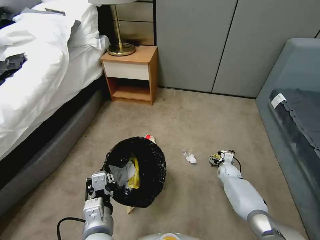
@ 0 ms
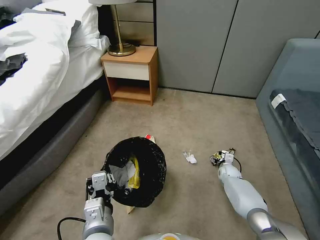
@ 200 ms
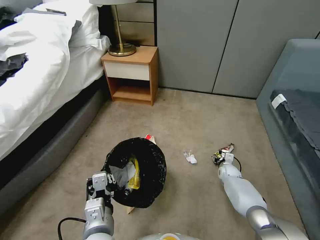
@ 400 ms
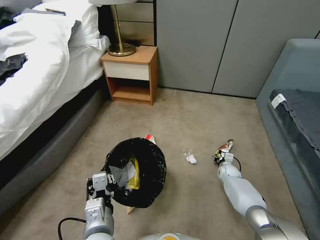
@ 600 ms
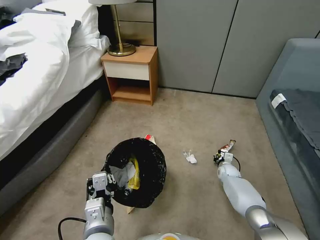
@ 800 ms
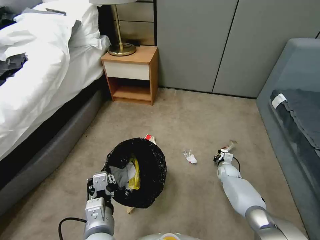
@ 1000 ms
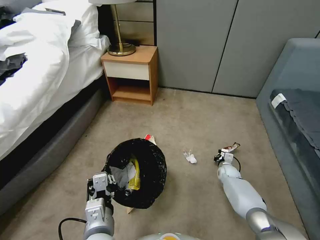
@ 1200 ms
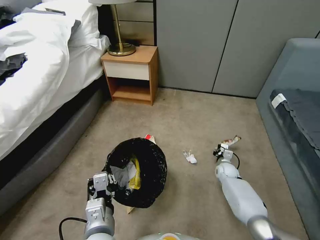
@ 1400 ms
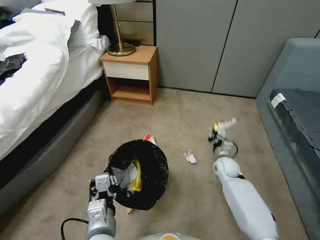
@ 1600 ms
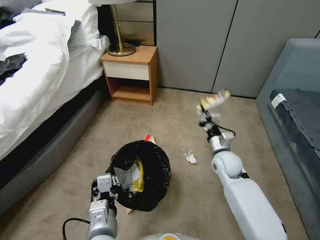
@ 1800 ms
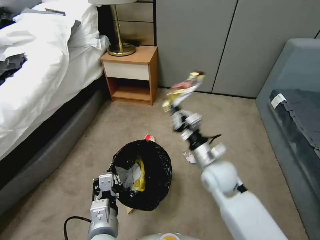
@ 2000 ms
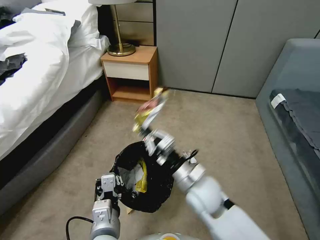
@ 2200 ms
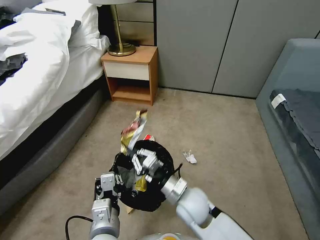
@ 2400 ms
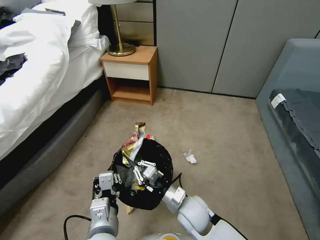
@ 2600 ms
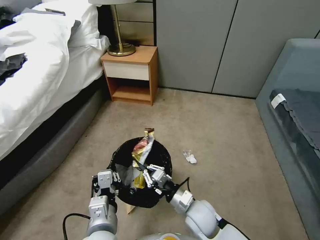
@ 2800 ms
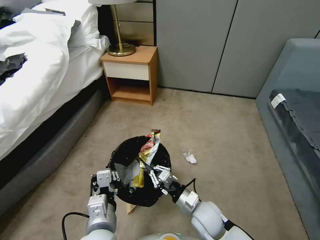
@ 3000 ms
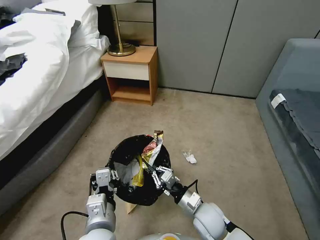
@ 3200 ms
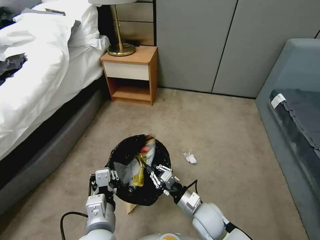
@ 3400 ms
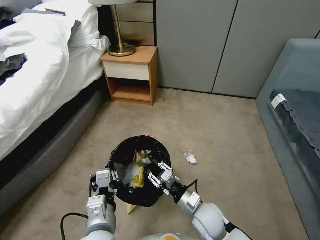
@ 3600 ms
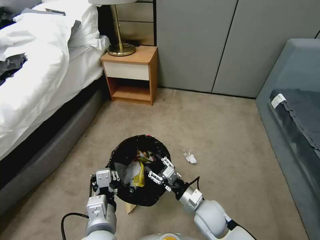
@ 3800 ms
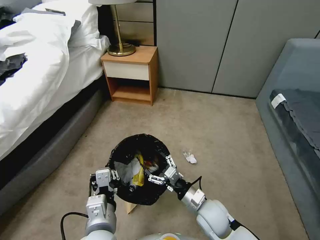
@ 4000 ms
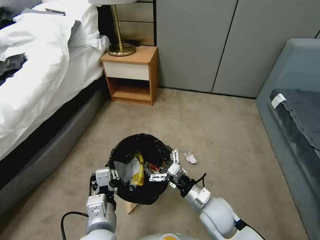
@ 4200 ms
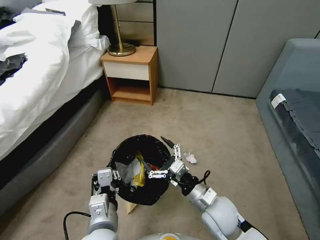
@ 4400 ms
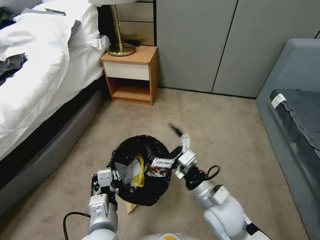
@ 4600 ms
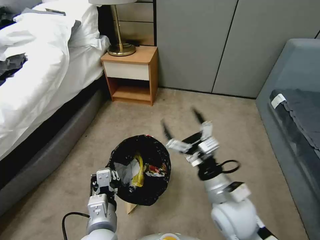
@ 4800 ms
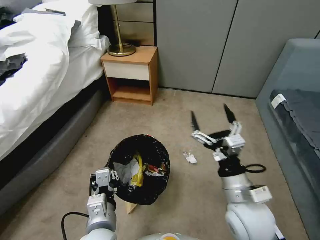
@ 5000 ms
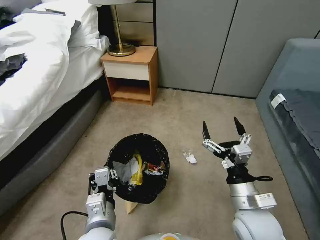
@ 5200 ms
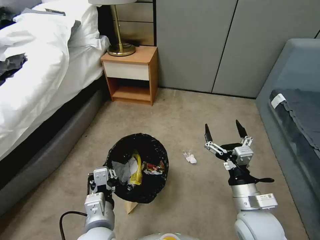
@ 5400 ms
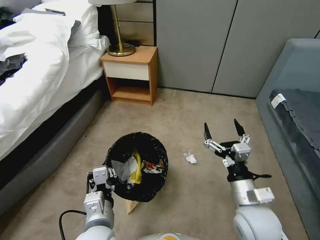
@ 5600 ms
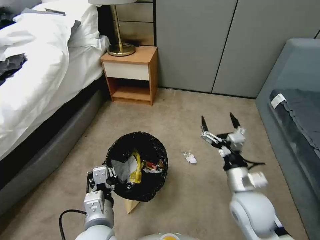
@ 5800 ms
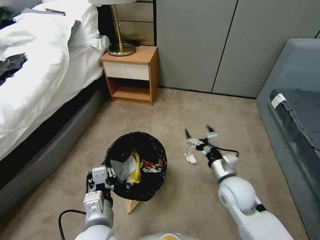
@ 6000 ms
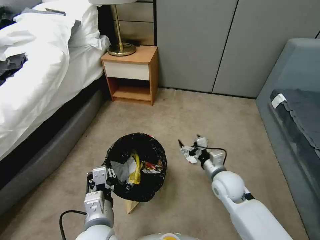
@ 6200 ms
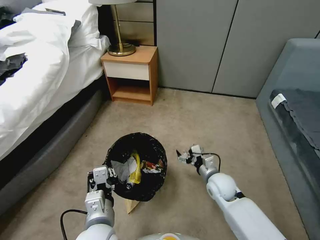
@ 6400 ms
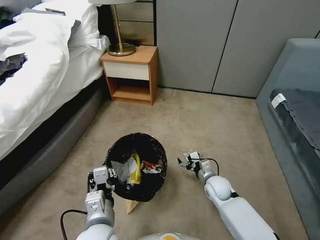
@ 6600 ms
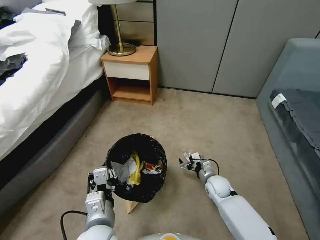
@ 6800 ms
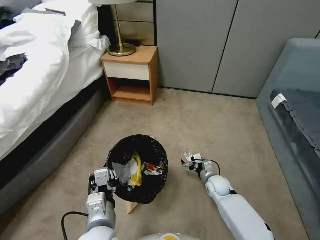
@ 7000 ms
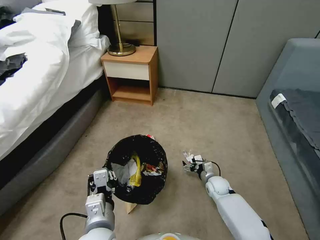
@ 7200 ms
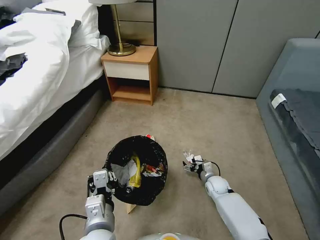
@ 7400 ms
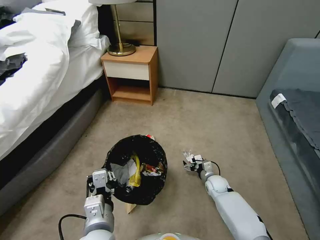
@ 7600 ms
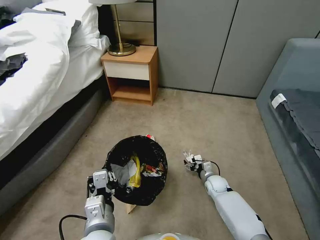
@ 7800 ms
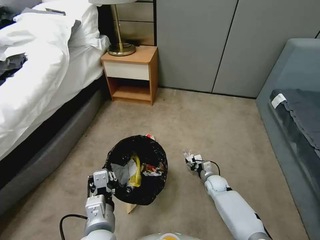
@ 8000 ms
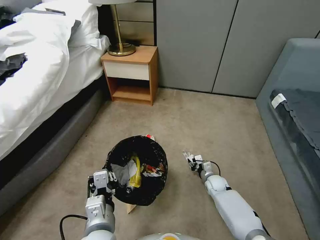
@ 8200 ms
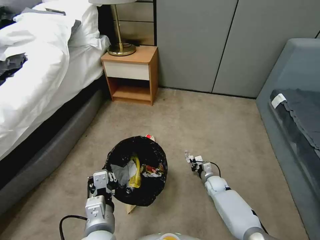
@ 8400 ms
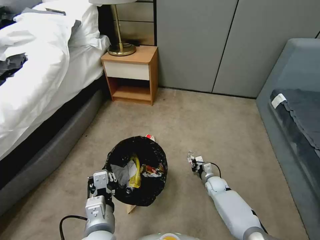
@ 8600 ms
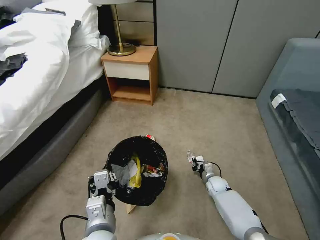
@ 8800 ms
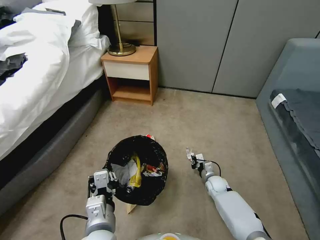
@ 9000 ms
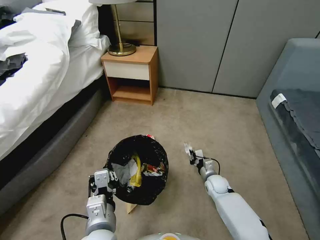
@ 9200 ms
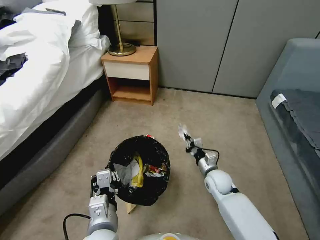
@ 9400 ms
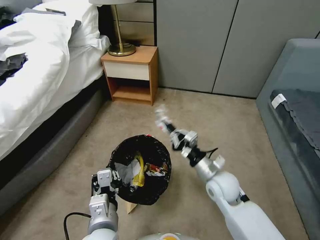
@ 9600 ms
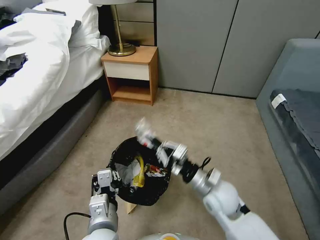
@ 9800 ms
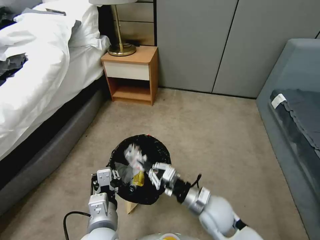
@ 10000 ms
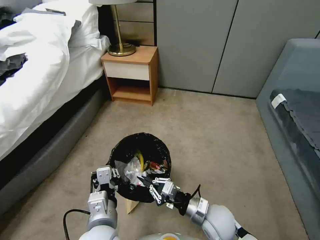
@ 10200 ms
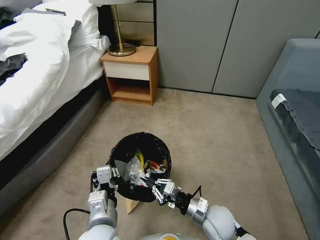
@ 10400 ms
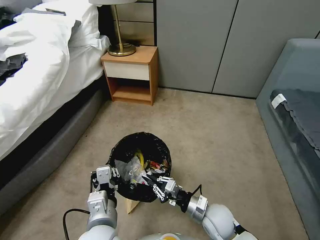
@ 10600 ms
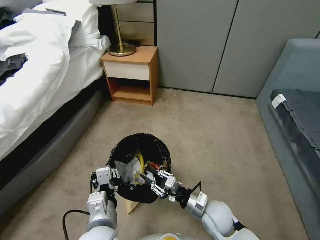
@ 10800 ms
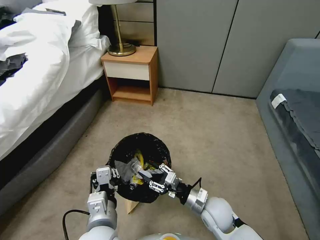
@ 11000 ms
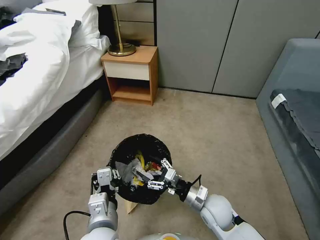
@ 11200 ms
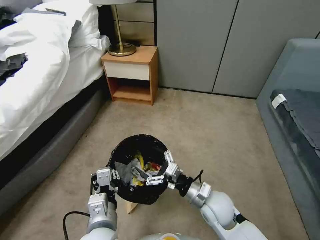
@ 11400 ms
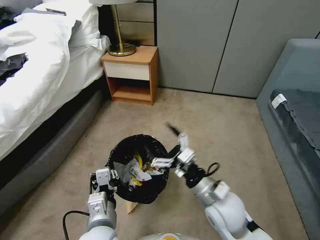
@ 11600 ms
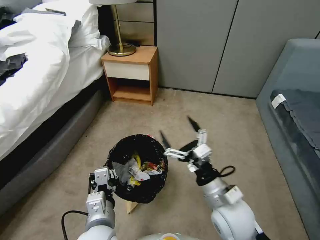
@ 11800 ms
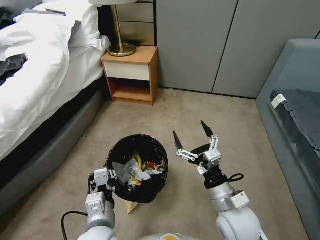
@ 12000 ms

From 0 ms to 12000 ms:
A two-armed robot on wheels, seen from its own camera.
Task of the whole recording: Pick up the trash bin, then pick up the garbage from the floor and place it into the trash bin.
From 0 ms to 1600 ms: The right gripper is displaced upward and to the left by about 10 cm, and closes.
From 1600 ms to 3000 ms: The right gripper travels backward and to the left by approximately 25 cm.
From 3000 ms to 4400 ms: The right gripper heads upward, covering about 5 cm, and opens its fingers.
From 4400 ms to 6000 ms: The right gripper shifts about 5 cm to the right.
From 6000 ms to 7600 ms: The right gripper shifts approximately 25 cm downward and forward.
From 7600 ms to 9000 ms: The right gripper closes up.
From 9000 ms to 10400 ms: The right gripper goes roughly 25 cm backward, upward and to the left.
From 10400 ms to 12000 ms: The right gripper moves upward, about 10 cm, and opens.

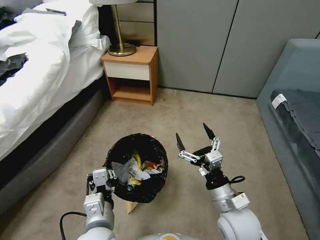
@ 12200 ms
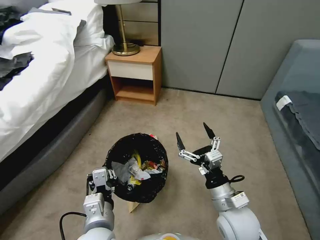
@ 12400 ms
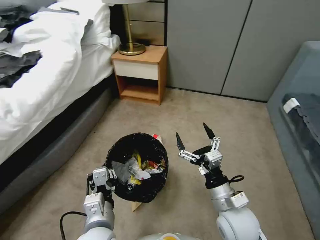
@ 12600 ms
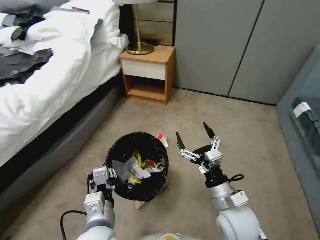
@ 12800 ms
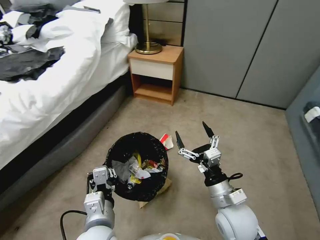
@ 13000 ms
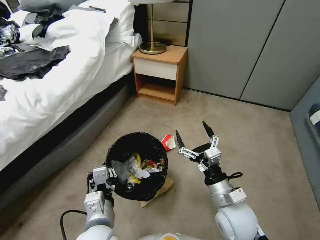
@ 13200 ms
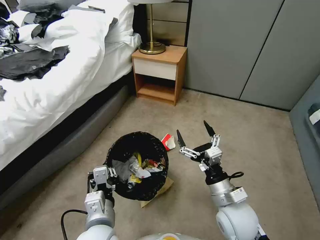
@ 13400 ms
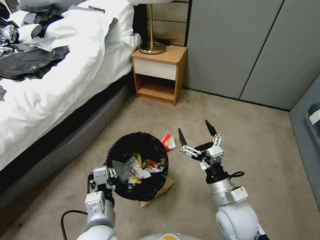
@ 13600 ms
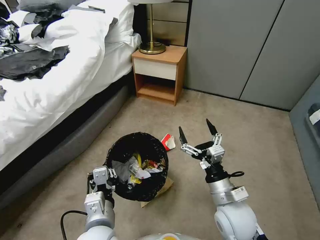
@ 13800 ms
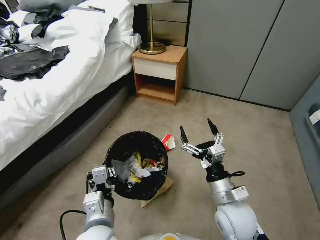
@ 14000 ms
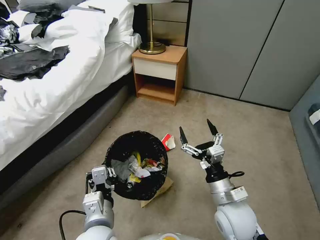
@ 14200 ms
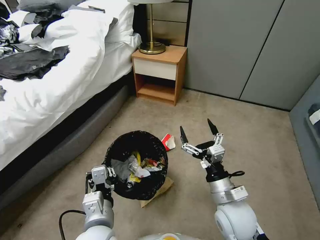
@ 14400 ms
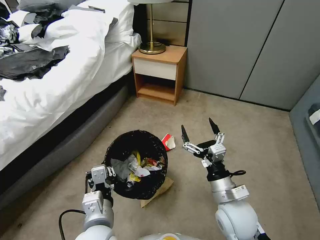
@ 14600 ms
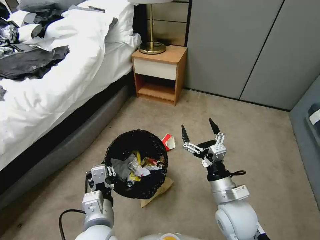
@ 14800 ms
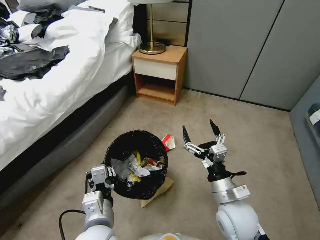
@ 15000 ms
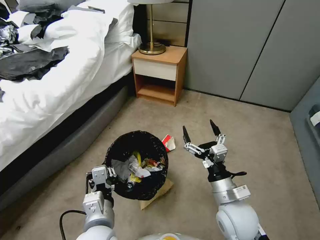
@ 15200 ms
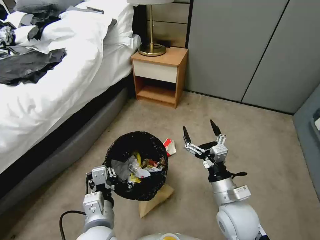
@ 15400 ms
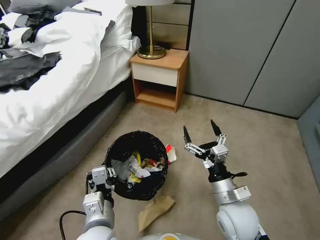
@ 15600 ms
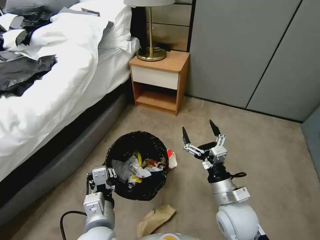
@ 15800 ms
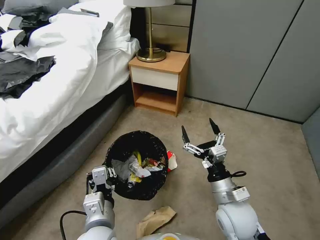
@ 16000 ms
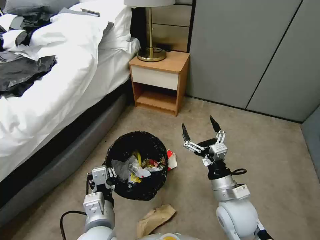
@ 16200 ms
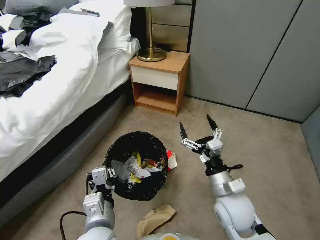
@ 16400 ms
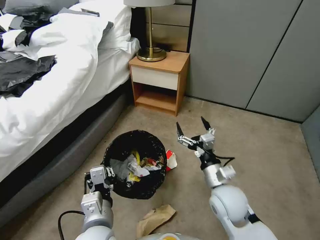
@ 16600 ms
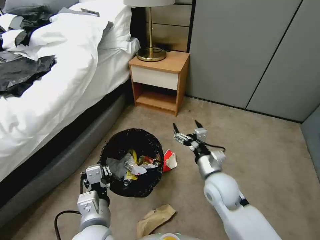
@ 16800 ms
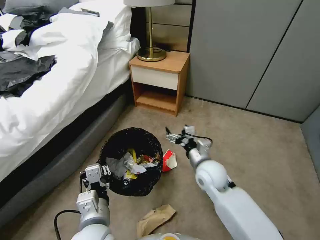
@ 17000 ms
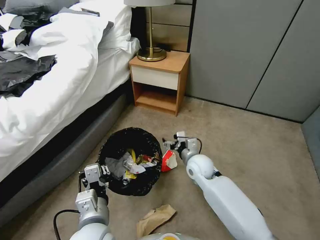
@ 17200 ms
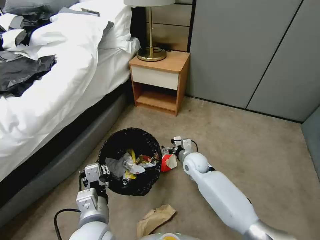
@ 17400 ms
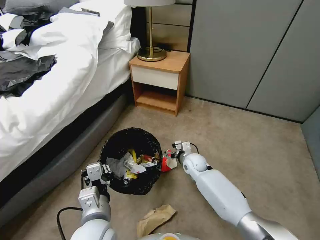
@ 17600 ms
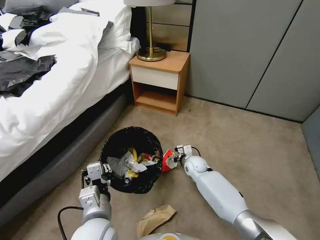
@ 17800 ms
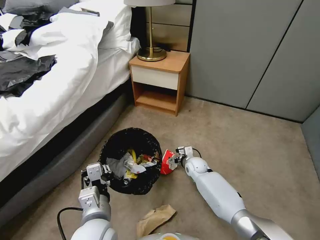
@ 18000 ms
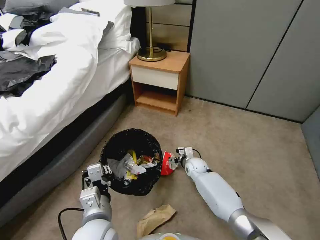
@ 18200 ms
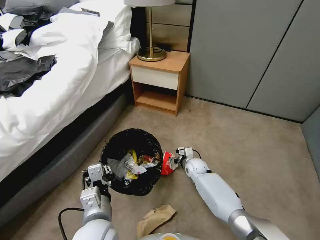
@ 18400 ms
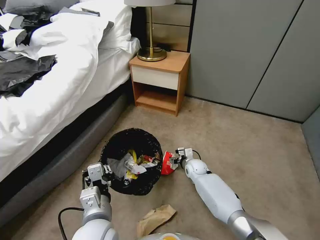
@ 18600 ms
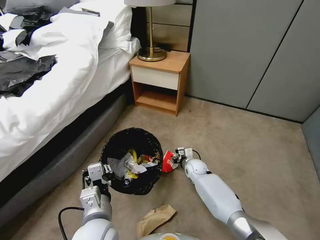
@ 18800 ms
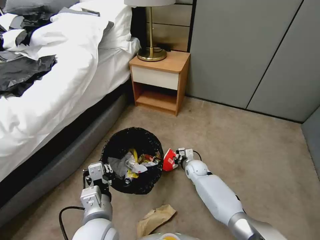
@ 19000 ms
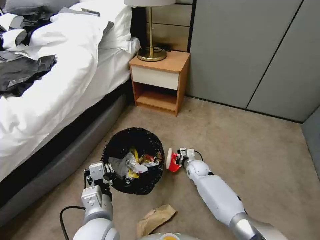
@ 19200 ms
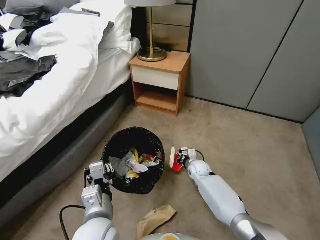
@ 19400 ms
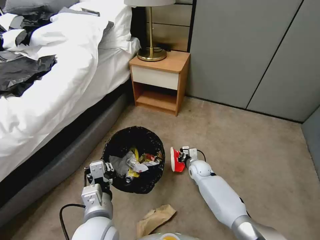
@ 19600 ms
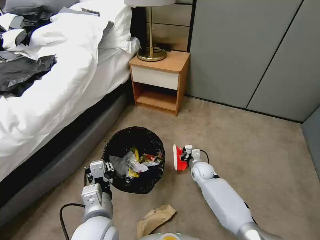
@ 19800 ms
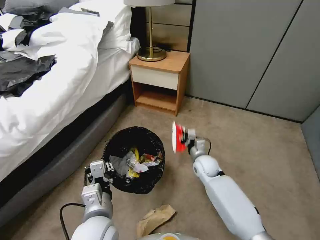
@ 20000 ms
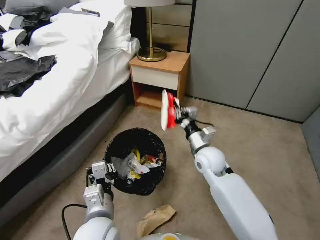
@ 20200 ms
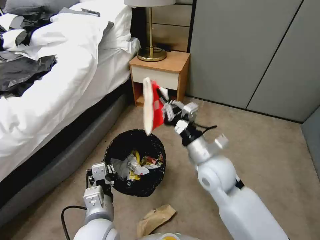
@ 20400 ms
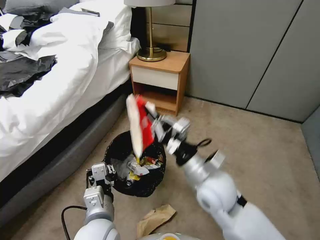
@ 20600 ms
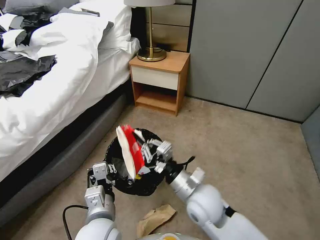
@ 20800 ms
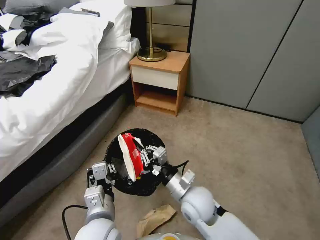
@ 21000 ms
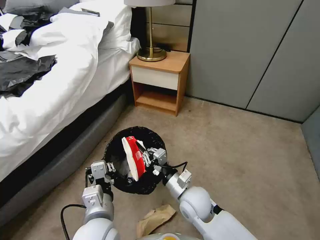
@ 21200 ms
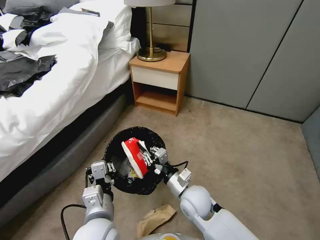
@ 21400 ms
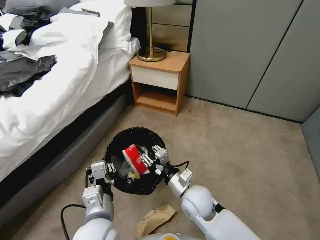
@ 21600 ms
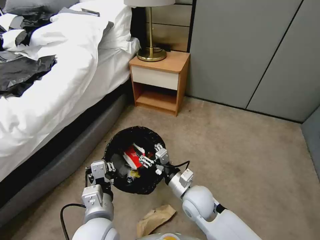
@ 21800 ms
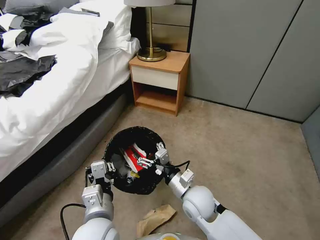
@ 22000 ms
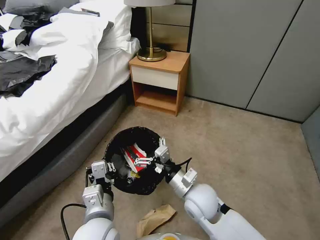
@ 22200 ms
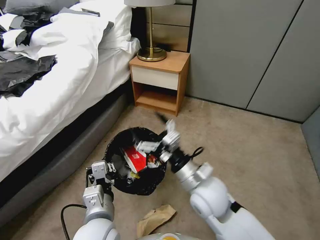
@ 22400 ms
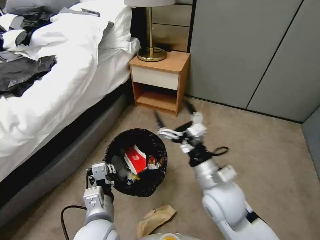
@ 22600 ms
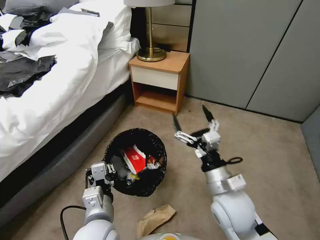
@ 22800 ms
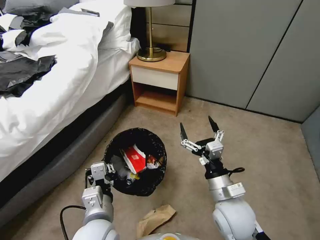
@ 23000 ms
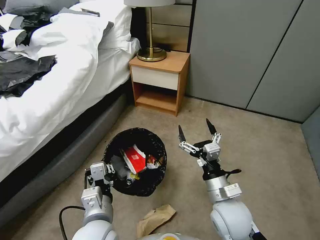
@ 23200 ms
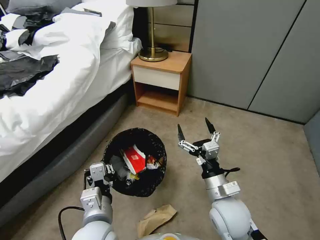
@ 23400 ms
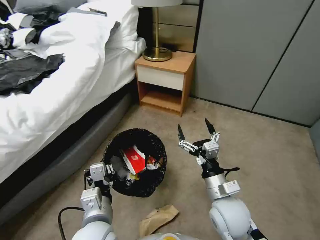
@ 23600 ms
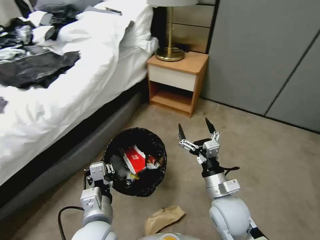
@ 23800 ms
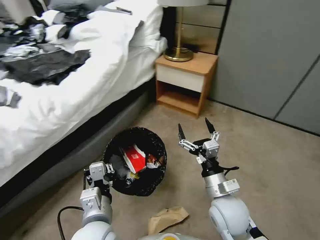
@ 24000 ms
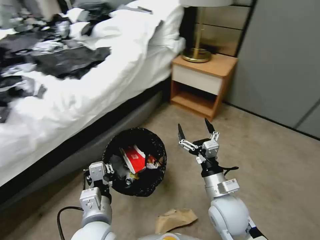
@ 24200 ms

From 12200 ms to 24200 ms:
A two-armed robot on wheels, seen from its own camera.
Task of the whole recording: Pick up the trash bin, then pick up the garbage from the floor and place it into the trash bin.
From 13800 ms to 15200 ms: Neither gripper changes place.
From 16600 ms to 18200 ms: The right gripper is displaced forward and downward by approximately 25 cm.
From 18200 ms to 19800 ms: The right gripper closes its fingers.
From 19800 ms to 21200 ms: The right gripper travels backward, upward and to the left by approximately 20 cm.
From 21200 ms to 22600 ms: The right gripper goes roughly 15 cm upward, and opens.
From 22600 ms to 24200 ms: The right gripper is displaced downward by roughly 5 cm.
